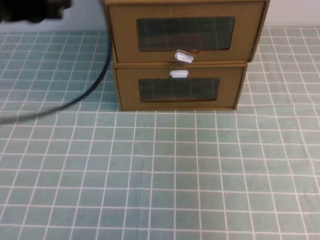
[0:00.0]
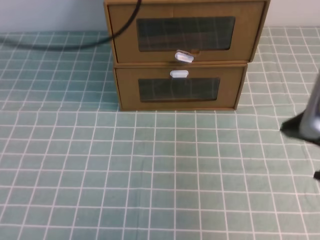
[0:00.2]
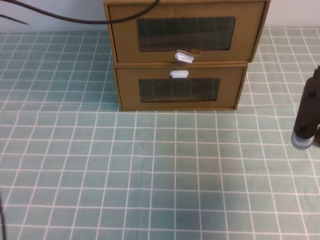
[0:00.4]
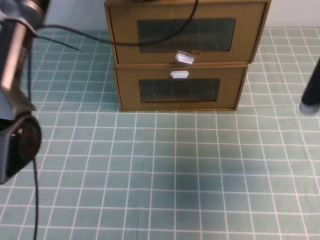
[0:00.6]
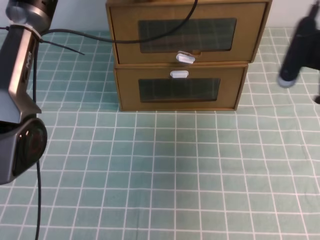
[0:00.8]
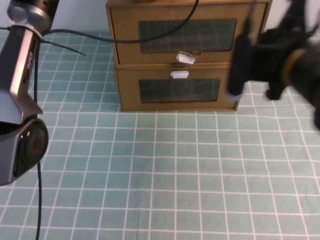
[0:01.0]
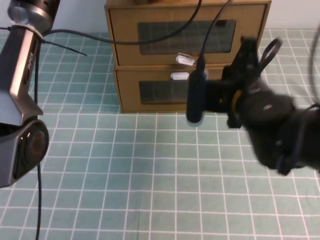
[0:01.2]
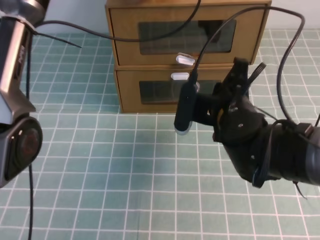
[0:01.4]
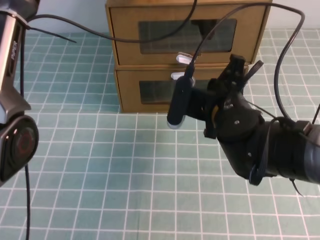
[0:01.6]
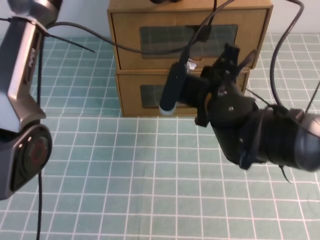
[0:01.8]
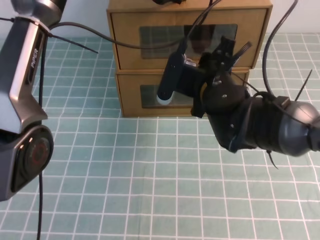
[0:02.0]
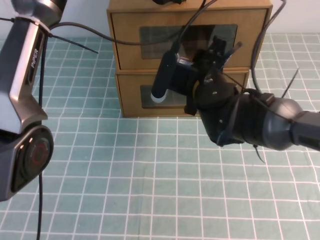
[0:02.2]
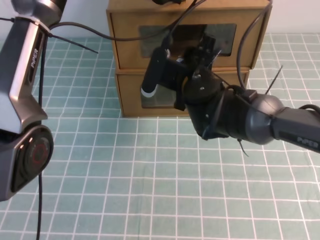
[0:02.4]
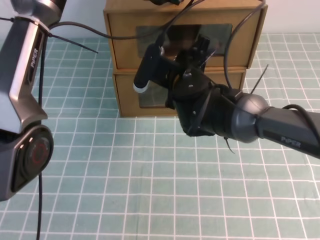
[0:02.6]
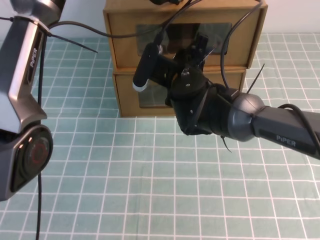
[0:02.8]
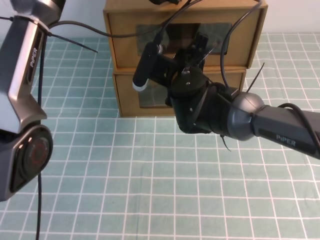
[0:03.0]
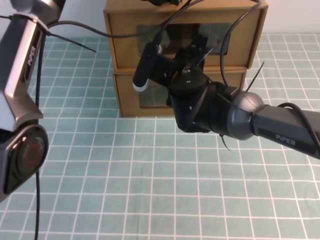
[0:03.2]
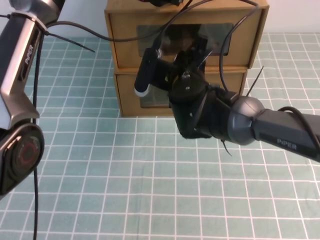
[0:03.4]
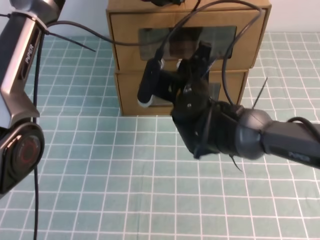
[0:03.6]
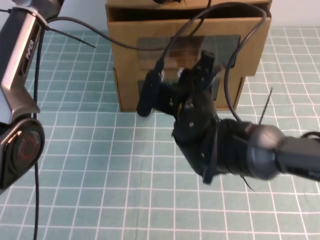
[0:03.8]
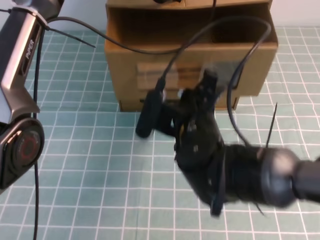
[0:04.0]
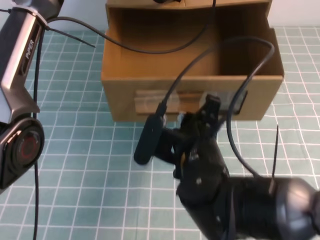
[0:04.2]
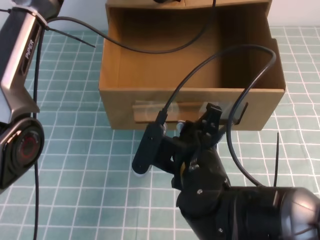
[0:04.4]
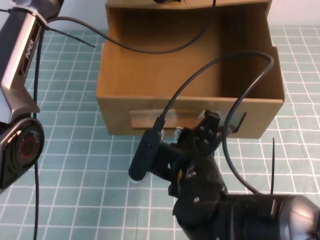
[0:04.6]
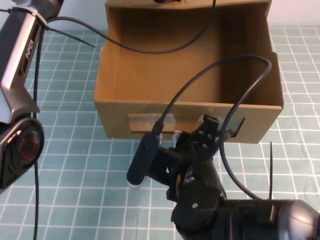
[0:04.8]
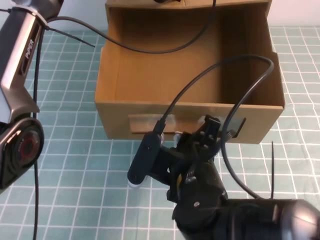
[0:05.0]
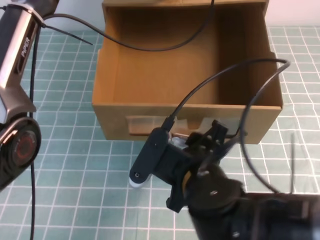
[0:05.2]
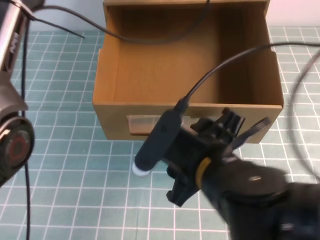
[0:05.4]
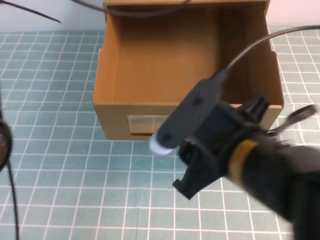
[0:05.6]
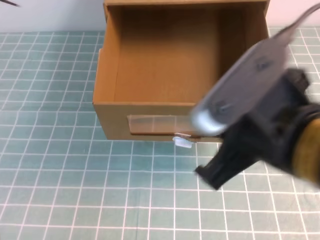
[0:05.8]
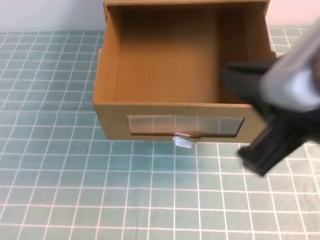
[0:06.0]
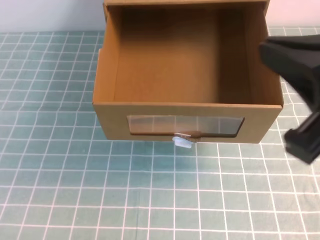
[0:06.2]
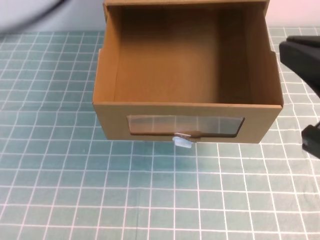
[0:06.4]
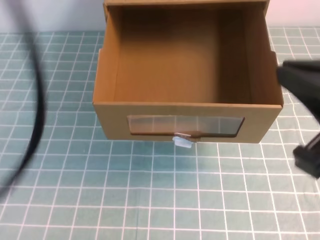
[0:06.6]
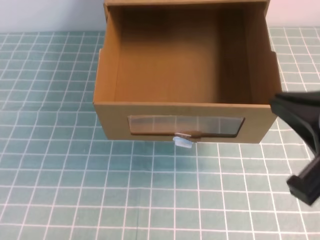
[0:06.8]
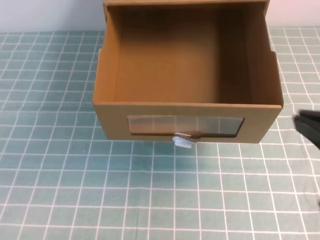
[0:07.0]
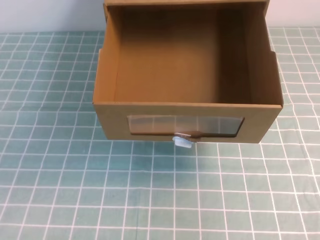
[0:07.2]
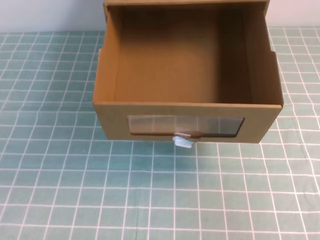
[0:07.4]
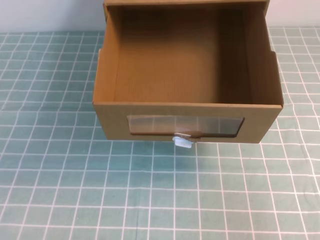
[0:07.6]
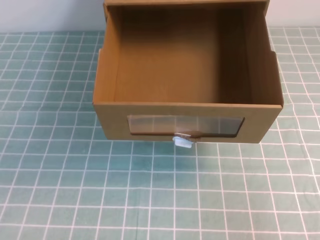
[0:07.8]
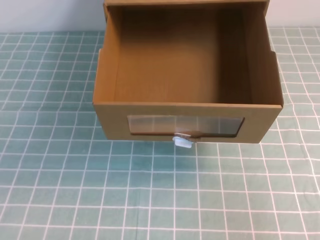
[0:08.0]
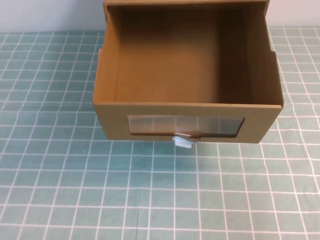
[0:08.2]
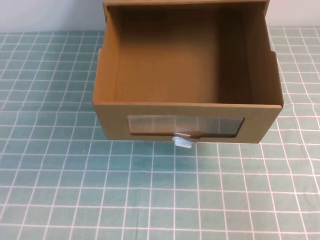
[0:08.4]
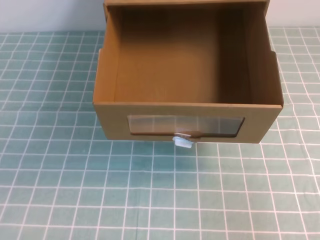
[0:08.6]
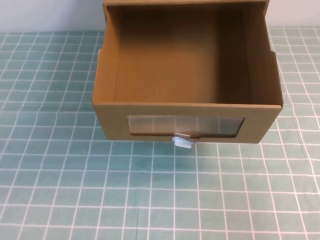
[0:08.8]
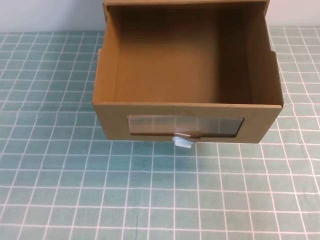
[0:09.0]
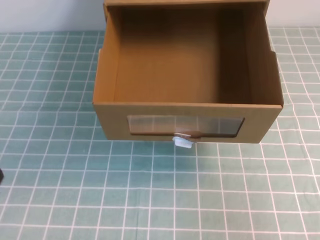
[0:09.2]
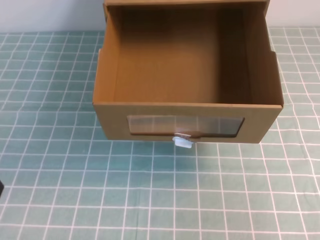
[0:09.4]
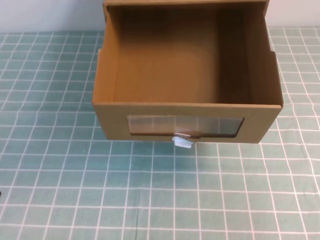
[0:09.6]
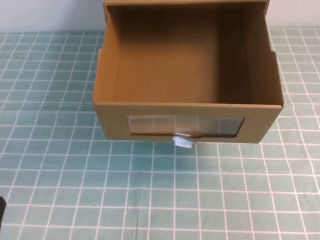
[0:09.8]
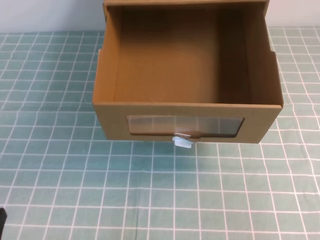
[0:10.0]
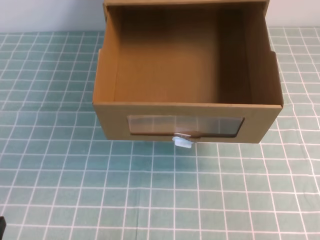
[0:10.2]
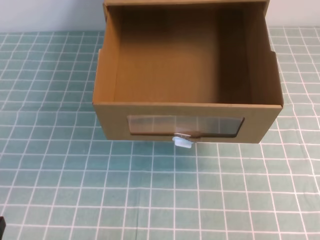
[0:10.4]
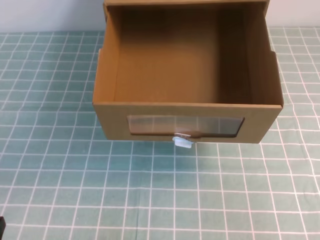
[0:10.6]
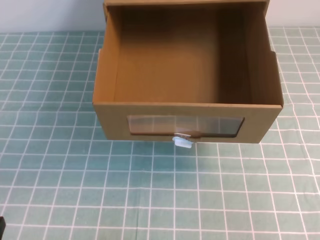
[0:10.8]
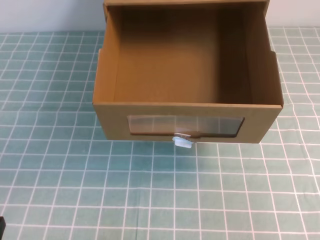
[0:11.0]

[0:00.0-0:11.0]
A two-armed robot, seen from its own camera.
Task of the whole recording: open the shoebox on the cyan tablecloth.
0:00.0 to 0:01.6: The right gripper shifts some 25 cm to the left, downward and forward, while the left gripper goes some 25 cm forward and to the right.
0:01.6 to 0:03.2: The right gripper heads forward and to the left, covering approximately 10 cm, and opens.
0:03.2 to 0:04.8: The right gripper is displaced backward by some 20 cm.
0:04.8 to 0:06.2: The left gripper goes approximately 30 cm backward, upward and to the left, while the right gripper moves upward, to the right and backward, some 25 cm, and closes its fingers.
0:06.2 to 0:07.8: The right gripper heads to the right and downward, covering some 20 cm, while the left gripper is displaced downward, backward and to the left by roughly 35 cm.

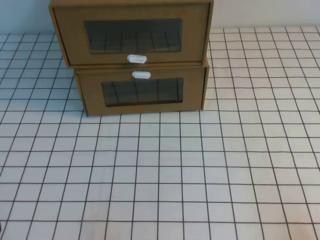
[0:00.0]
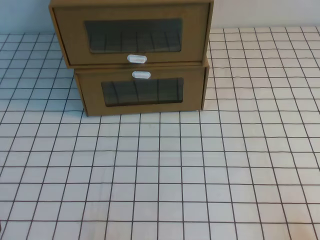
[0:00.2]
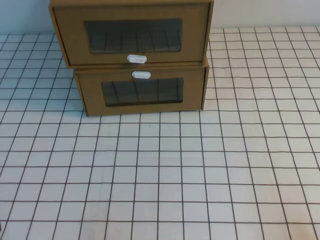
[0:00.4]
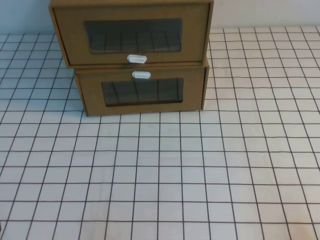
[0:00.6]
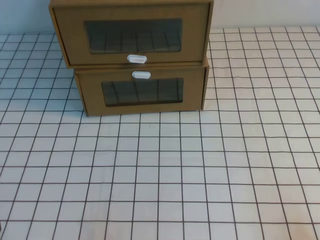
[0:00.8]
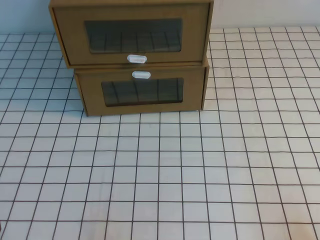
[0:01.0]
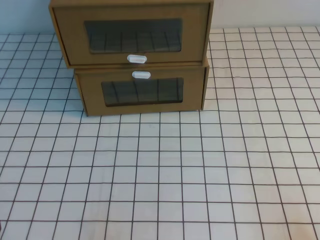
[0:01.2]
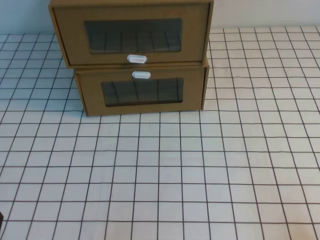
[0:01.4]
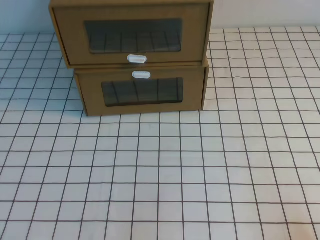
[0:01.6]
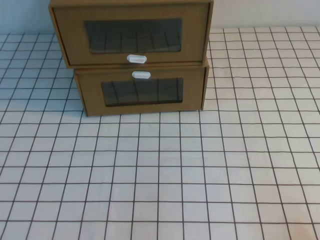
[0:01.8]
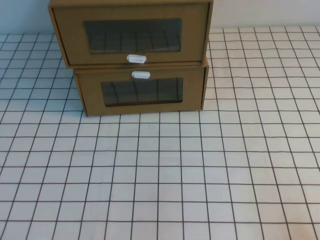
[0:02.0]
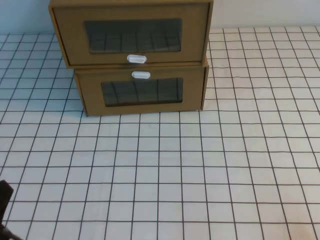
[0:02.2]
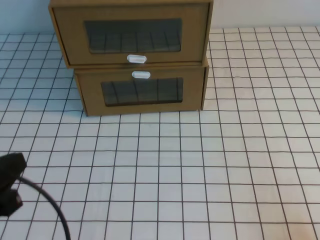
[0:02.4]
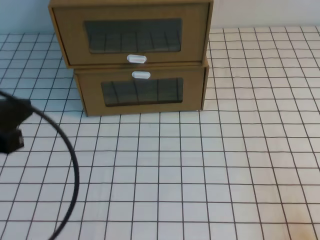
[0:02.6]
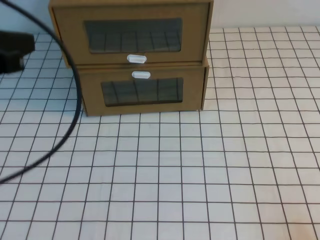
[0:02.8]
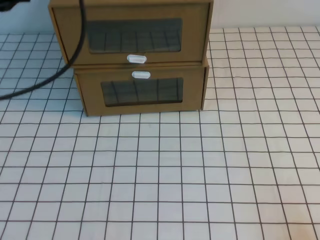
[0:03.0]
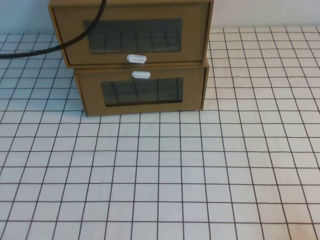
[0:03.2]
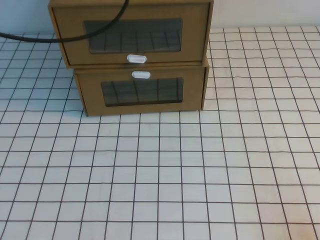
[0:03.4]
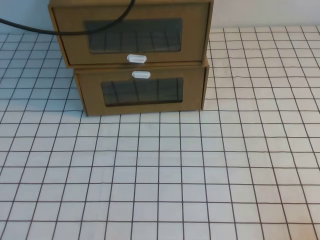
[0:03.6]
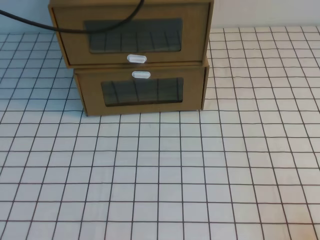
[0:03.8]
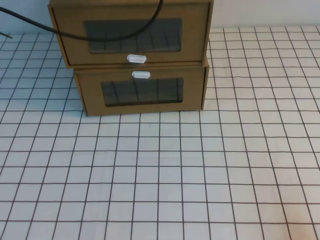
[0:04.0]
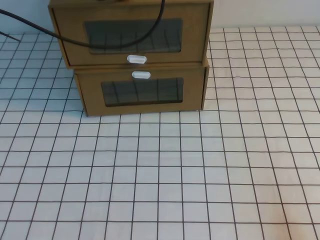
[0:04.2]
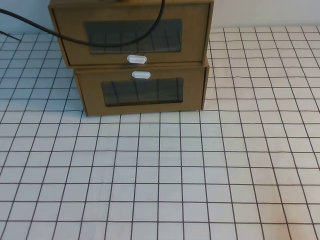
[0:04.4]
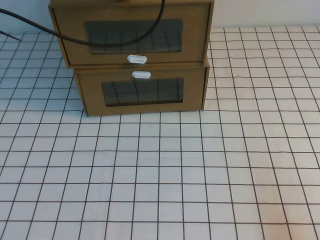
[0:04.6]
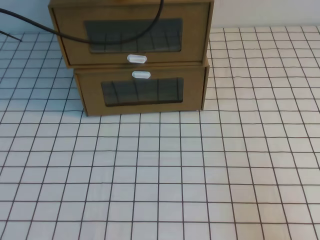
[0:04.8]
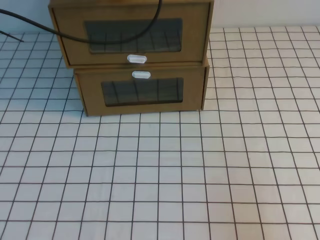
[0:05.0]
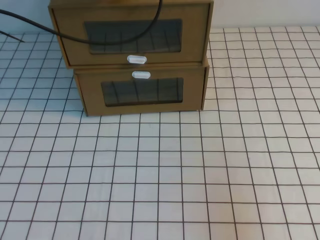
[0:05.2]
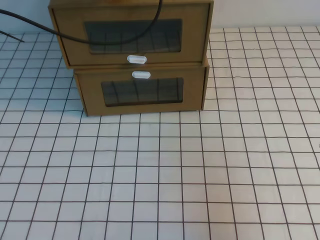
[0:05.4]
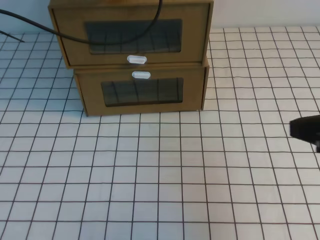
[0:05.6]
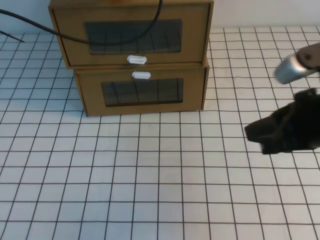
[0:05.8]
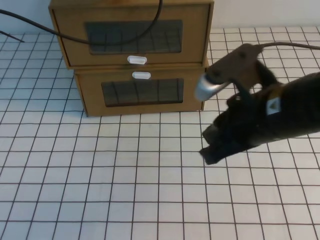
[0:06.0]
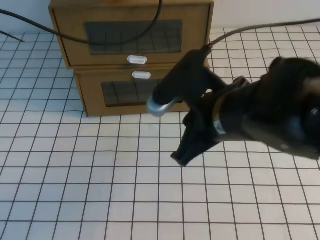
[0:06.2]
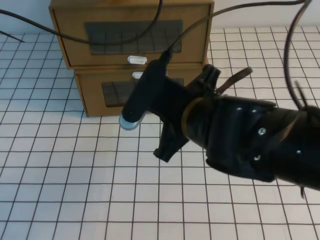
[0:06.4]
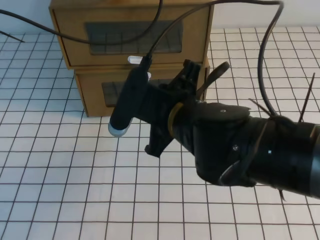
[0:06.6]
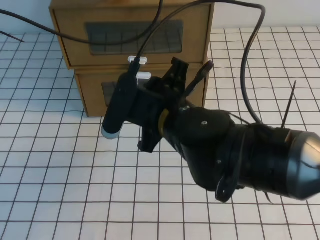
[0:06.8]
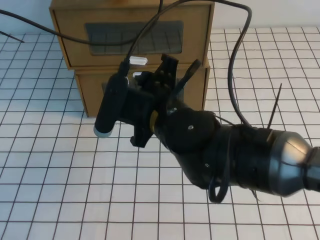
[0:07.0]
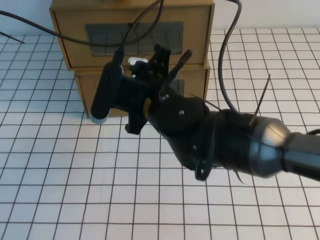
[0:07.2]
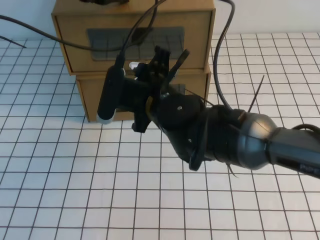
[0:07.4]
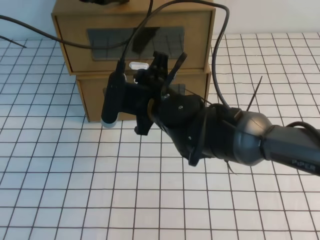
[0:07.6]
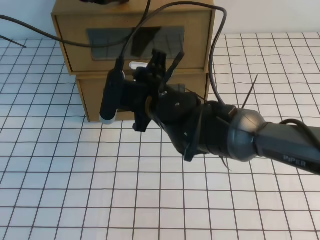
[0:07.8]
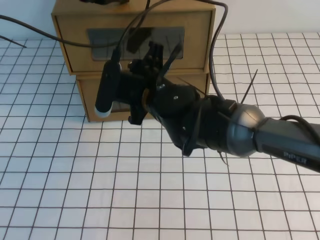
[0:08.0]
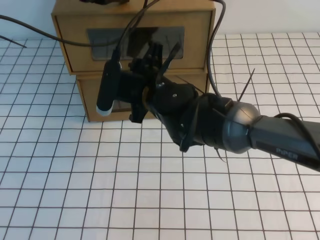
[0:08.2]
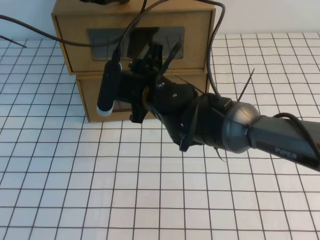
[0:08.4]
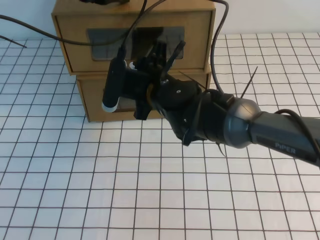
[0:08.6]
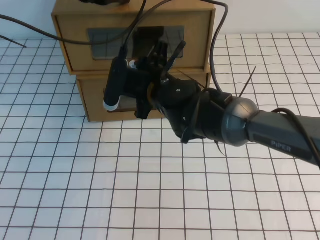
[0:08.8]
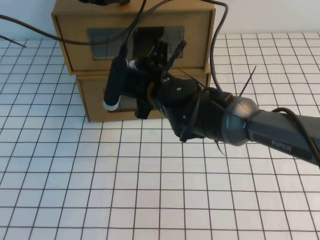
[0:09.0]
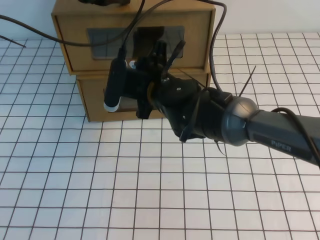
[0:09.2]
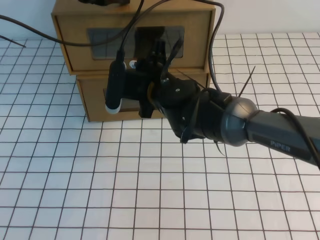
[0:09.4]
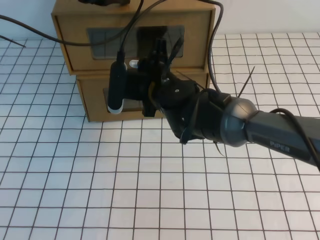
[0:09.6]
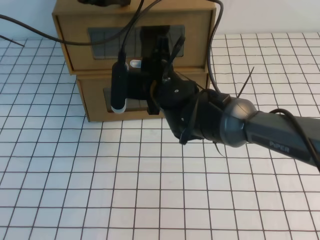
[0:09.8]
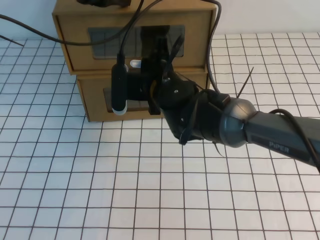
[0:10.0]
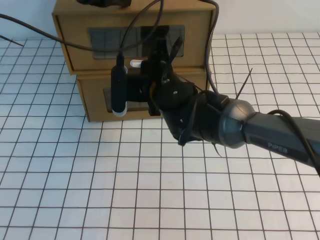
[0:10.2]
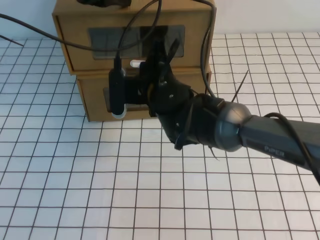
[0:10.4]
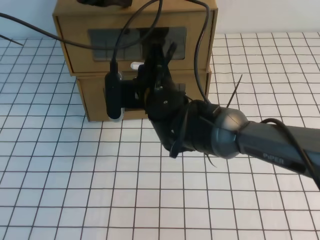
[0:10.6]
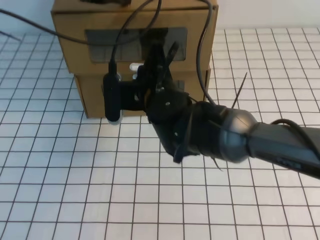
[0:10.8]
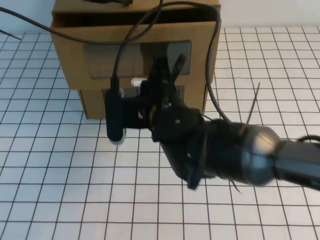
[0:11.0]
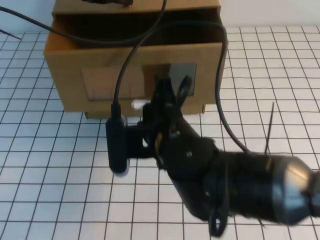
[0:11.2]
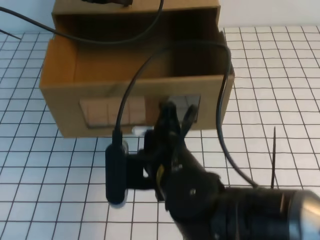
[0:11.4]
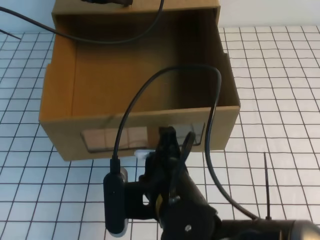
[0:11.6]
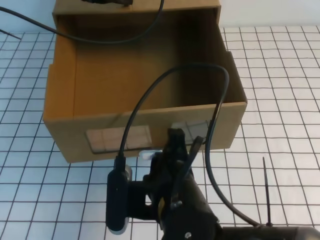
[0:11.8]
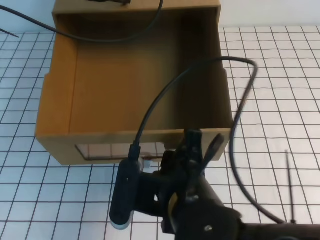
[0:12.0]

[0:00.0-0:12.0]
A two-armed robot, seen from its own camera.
Task of the whole recording: open the shoebox on the white tablecloth.
0:01.6 to 0:03.0: The left gripper heads upward and forward, covering approximately 35 cm.
0:03.0 to 0:04.4: The left gripper goes about 20 cm forward and to the right.
0:04.4 to 0:06.0: The right gripper travels to the left, forward and upward by about 25 cm.
0:06.0 to 0:07.6: The right gripper heads to the left and forward, covering roughly 20 cm, and opens its fingers.
0:07.6 to 0:09.0: The grippers make only small movements.
0:09.0 to 0:10.4: The right gripper closes.
0:10.4 to 0:12.0: The right gripper travels backward by about 20 cm, and opens its fingers.
